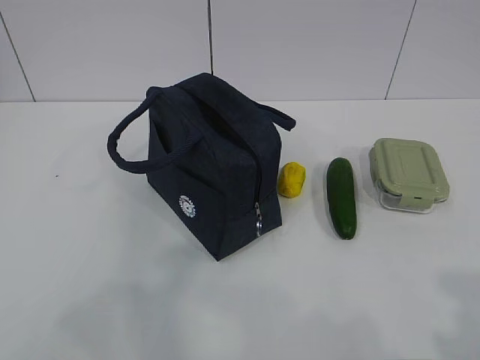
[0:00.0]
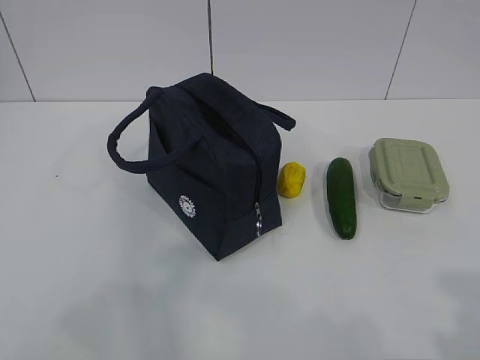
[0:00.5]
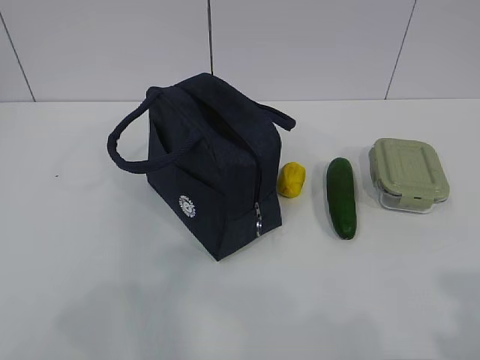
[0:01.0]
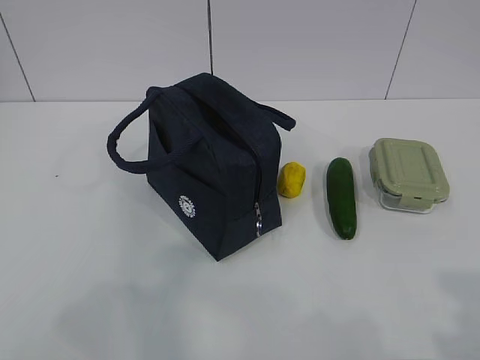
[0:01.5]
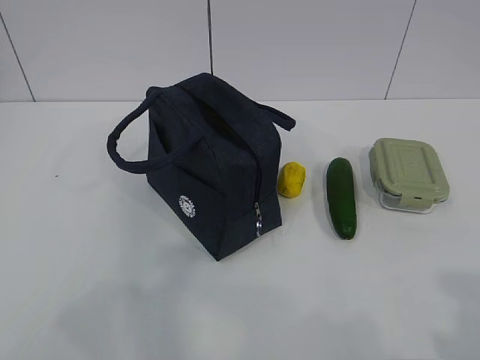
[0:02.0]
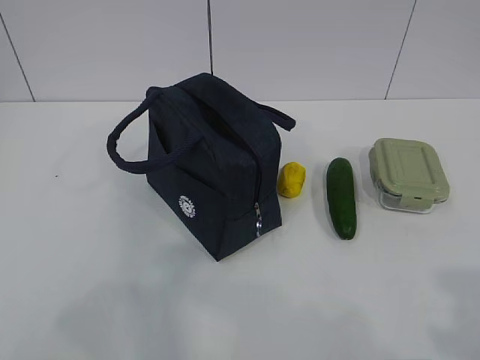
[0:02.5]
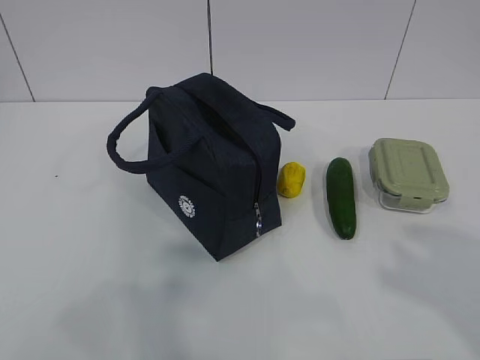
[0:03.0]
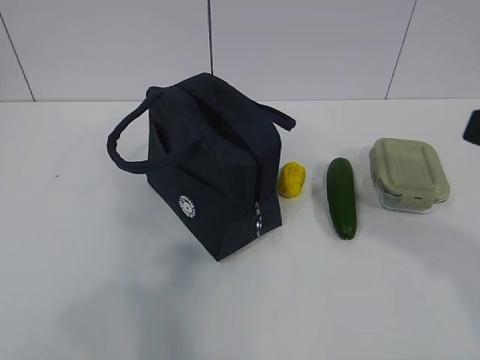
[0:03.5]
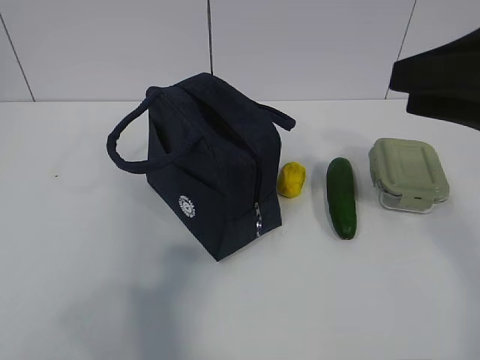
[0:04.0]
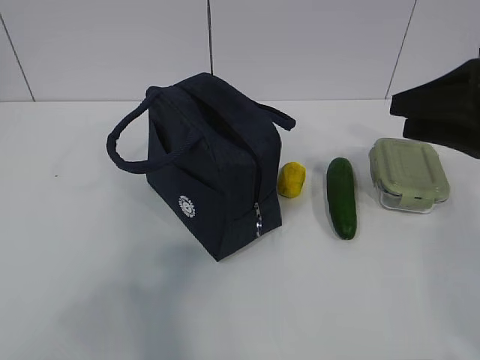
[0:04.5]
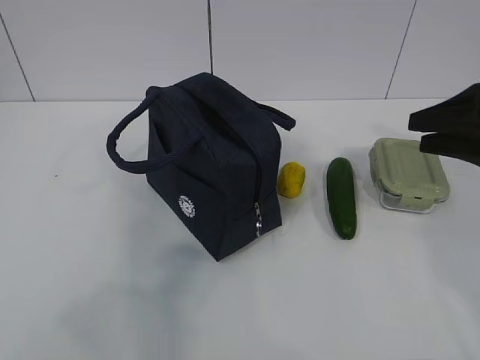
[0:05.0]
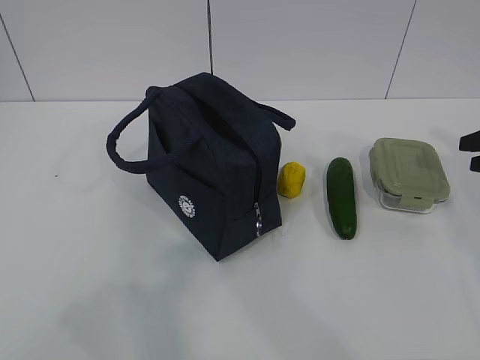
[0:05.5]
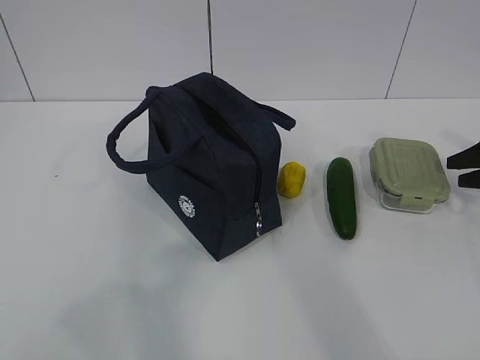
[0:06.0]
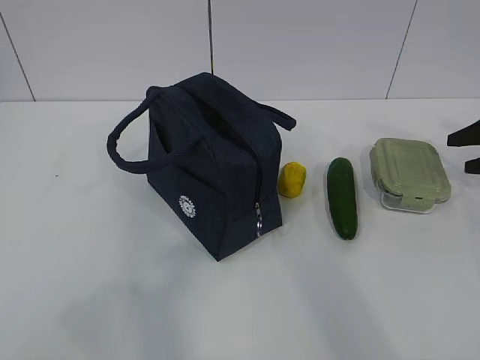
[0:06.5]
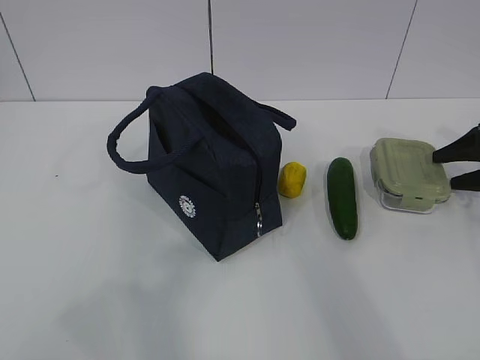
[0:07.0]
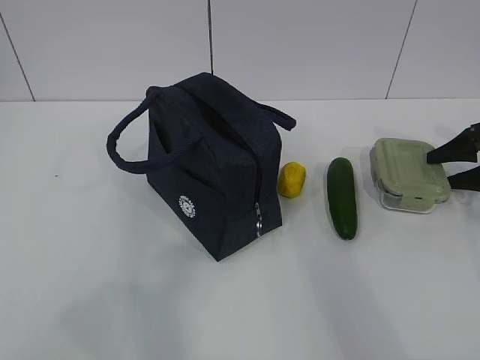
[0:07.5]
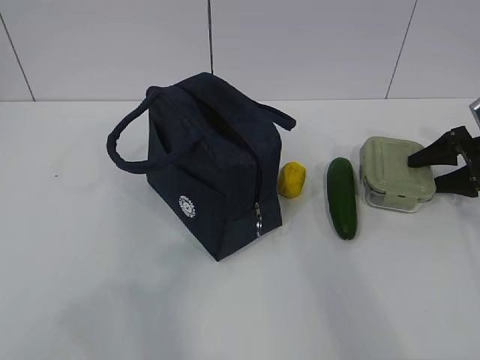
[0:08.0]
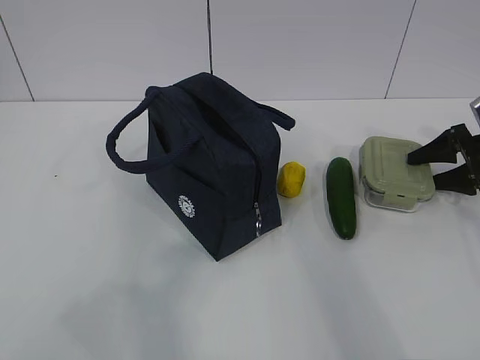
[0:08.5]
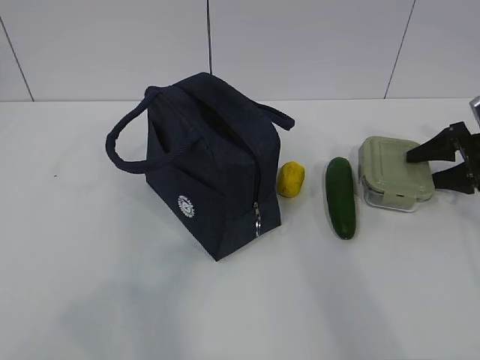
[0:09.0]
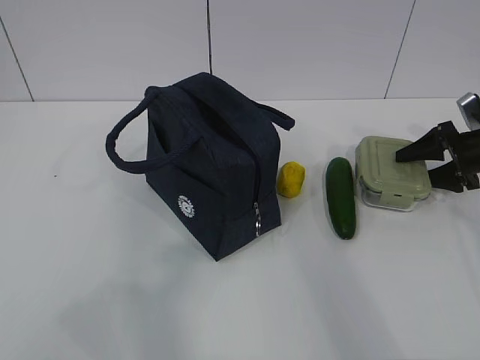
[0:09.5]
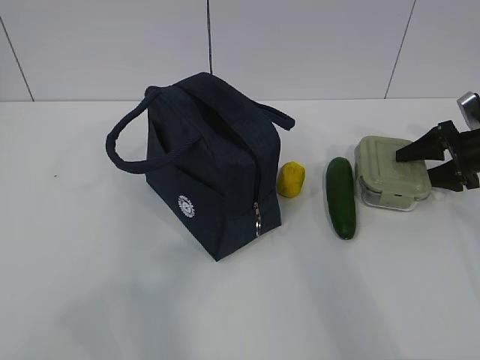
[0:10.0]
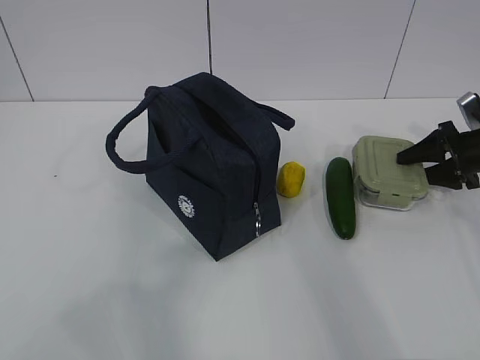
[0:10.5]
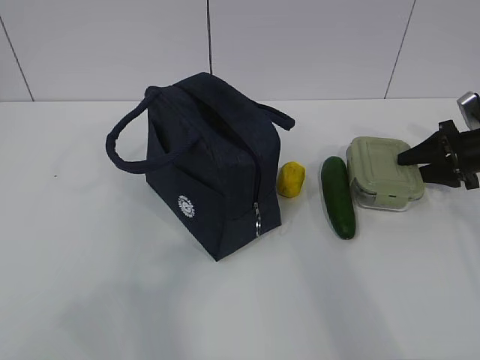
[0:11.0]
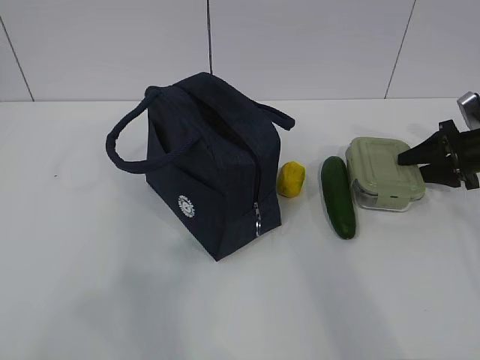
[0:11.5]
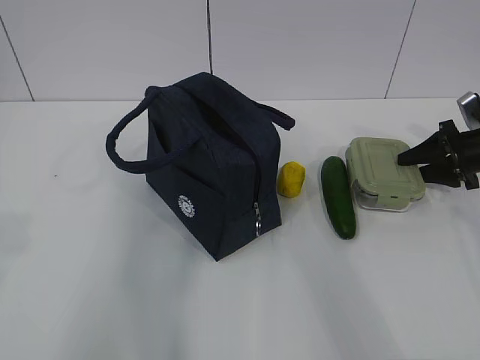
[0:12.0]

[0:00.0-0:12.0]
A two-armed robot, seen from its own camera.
Step, 0:00.0 to 0:11.5: Grab the lunch box with your right hand.
0:02.0 to 0:04.0: The right gripper goes about 20 cm forward.
0:04.0 to 0:06.0: The right gripper is displaced to the right, downward and forward by approximately 35 cm.
0:06.0 to 0:08.0: The right gripper moves approximately 5 cm.
0:08.0 to 0:10.0: The grippers stay close to where they were, moving slightly.

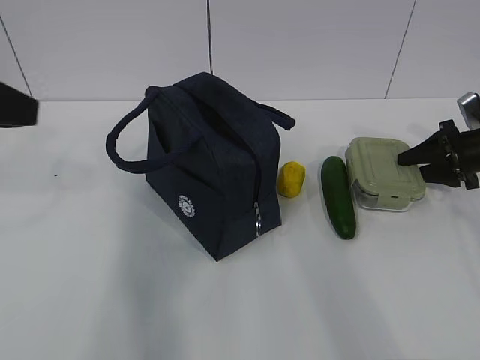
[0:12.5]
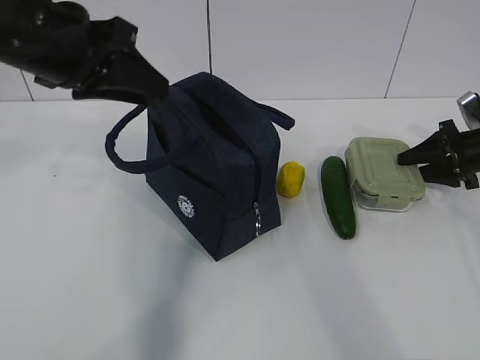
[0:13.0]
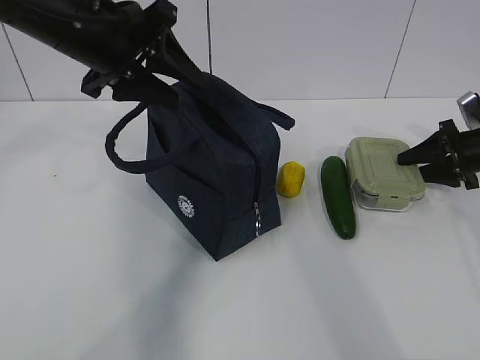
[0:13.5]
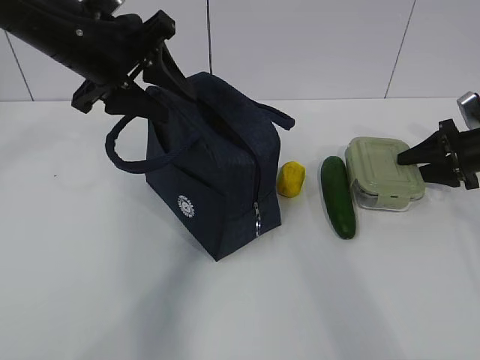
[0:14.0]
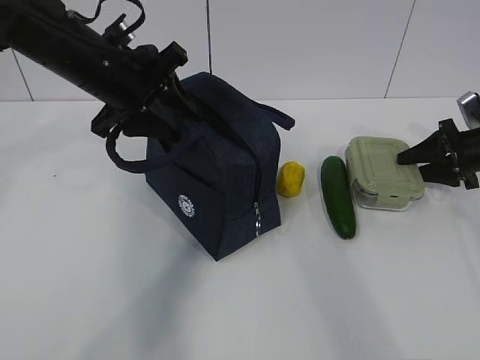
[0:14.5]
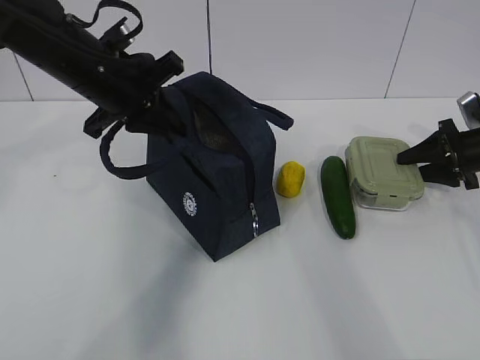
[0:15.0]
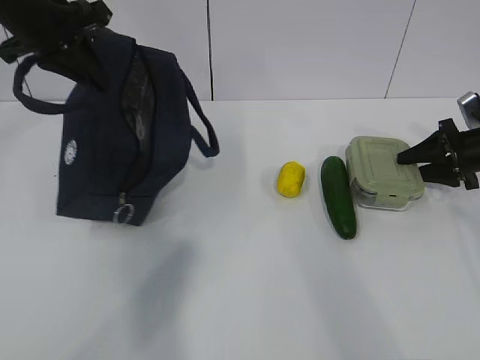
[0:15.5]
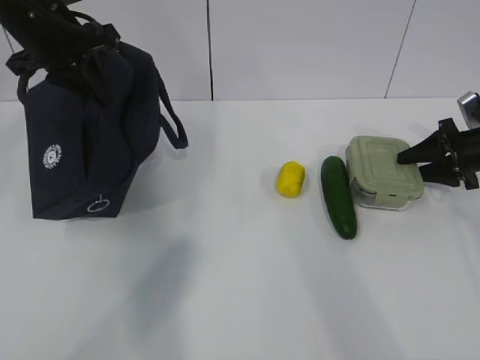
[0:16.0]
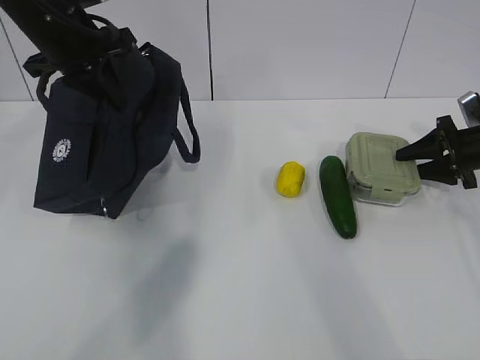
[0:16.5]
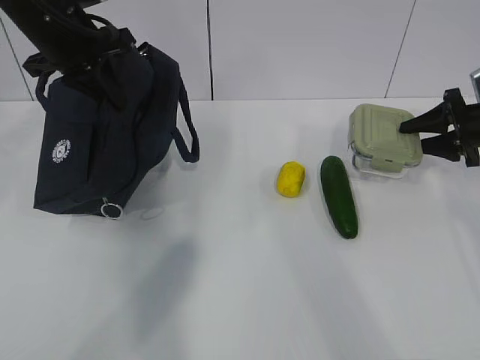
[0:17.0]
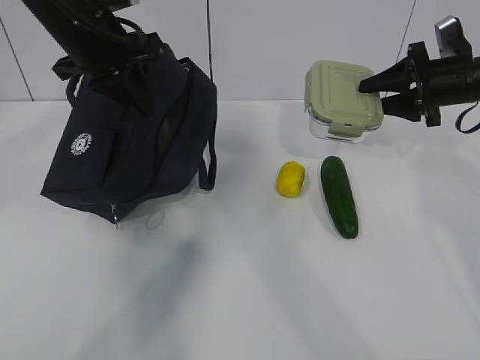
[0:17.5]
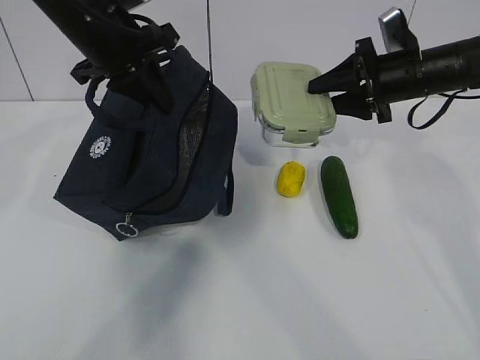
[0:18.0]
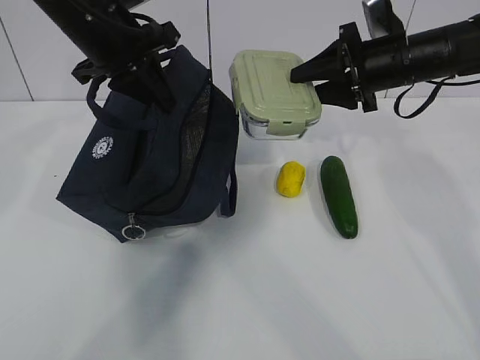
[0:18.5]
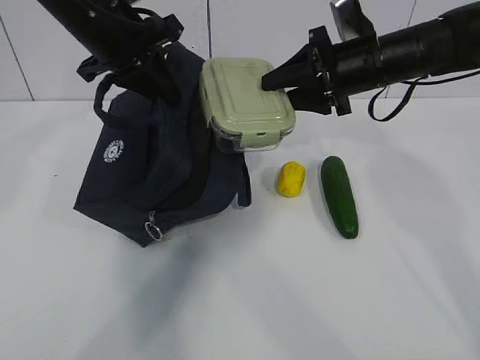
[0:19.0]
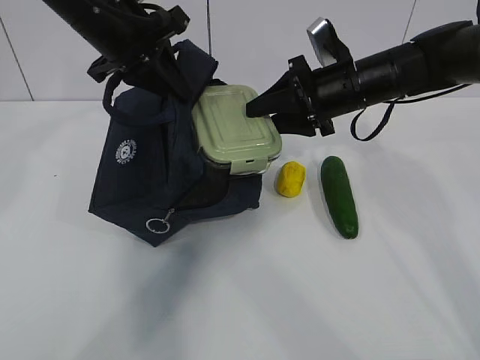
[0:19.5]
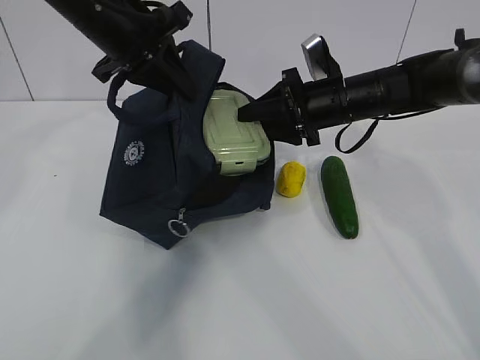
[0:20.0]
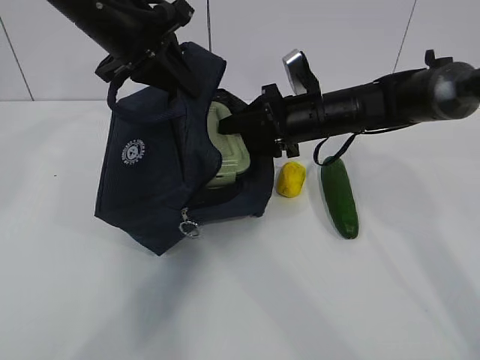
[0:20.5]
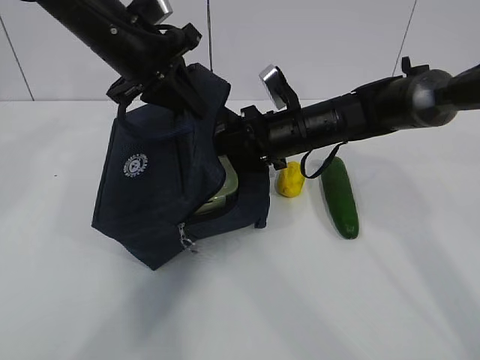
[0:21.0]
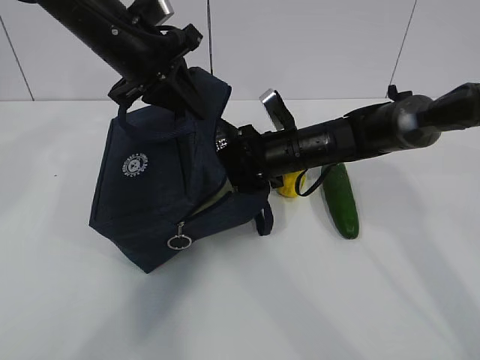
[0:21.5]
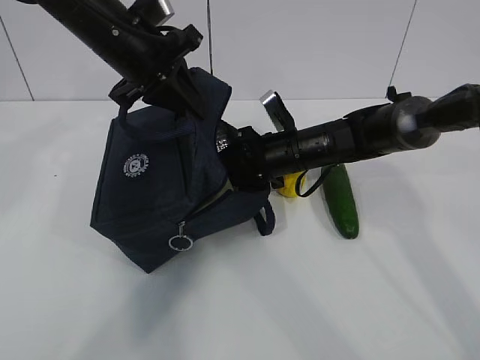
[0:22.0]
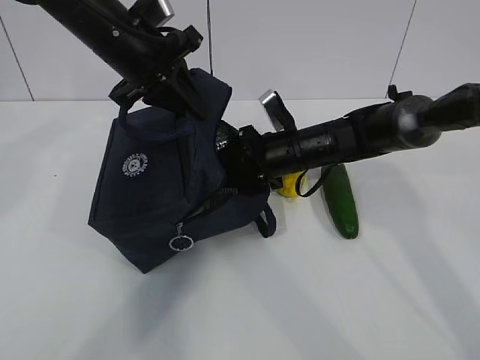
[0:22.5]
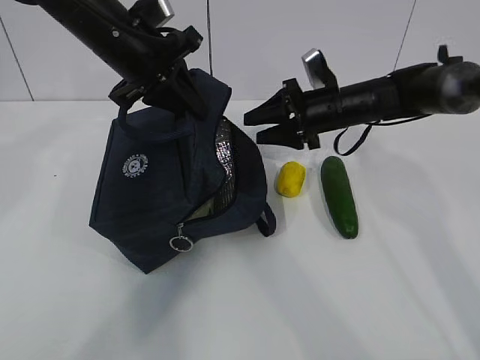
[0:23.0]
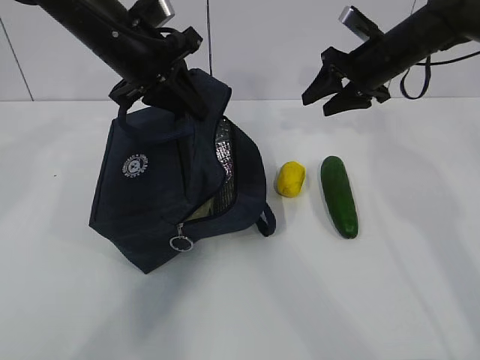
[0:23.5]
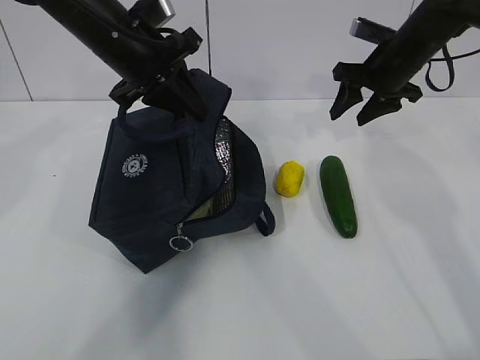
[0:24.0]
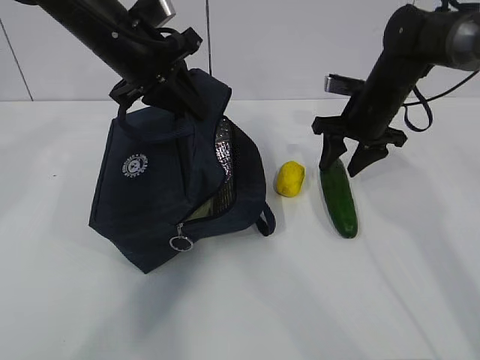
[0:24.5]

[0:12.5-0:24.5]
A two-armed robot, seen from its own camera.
Step, 0:14.0 to 0:15.5: Grab the lunch bag with your left hand.
Step, 0:16.0 to 0:18.5: Place it into the bag with your right hand.
Step, 0:19.0 to 0:21.0: Grab the cucumber with your right hand.
Step, 0:21.5 to 0:23.5: Place it into the bag with your right hand.
0:12.5 to 0:14.5: The left gripper heads forward, to the right and downward, covering roughly 20 cm, and opens up.
0:14.5 to 0:16.5: The left gripper heads to the left, covering approximately 5 cm, and closes.
0:16.5 to 0:18.5: The right gripper is displaced to the left and upward by roughly 20 cm; the left gripper moves about 5 cm.
0:18.5 to 0:20.5: The right gripper moves to the left and downward, approximately 10 cm.
0:20.5 to 0:22.5: The right gripper goes about 5 cm downward.
0:22.5 to 0:24.5: The right gripper heads to the right and upward, covering about 10 cm.

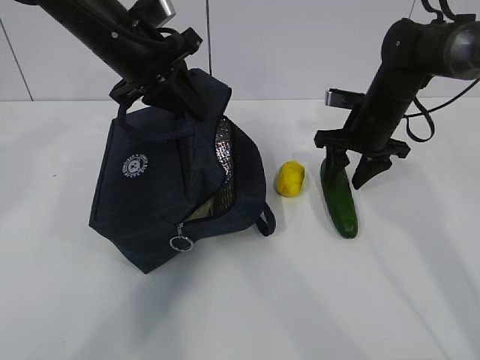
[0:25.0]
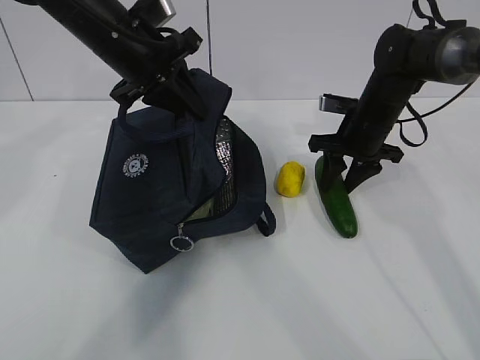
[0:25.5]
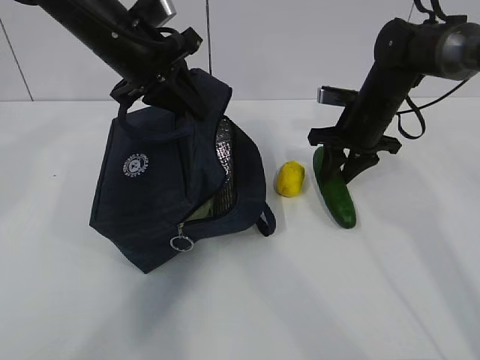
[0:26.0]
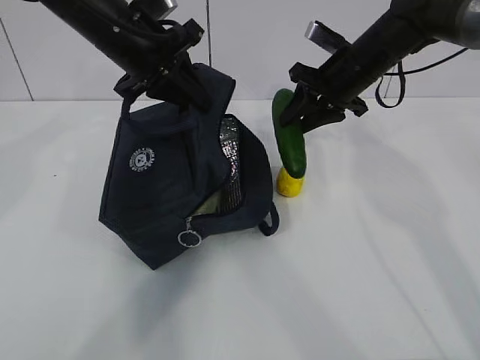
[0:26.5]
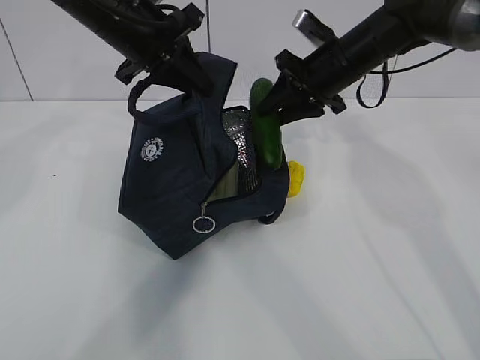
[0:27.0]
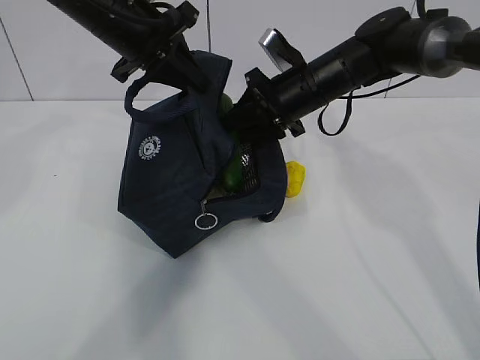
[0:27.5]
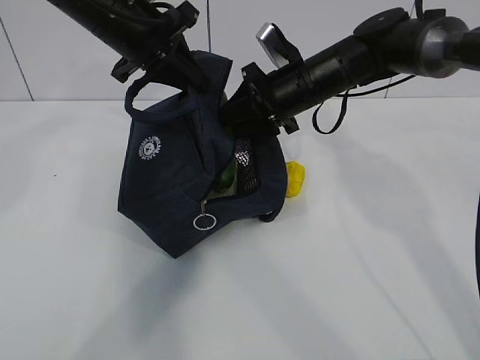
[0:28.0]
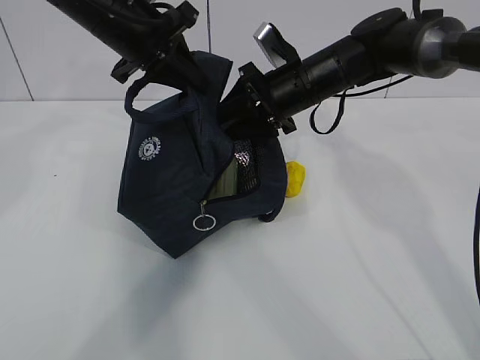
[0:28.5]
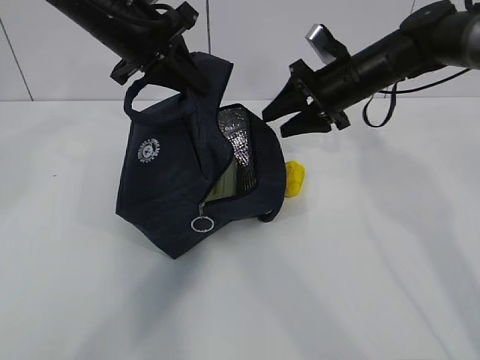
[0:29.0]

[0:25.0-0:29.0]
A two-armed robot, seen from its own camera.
Step, 0:25.5 to 0:27.0: Secure the lunch bag with your left hand.
Step, 0:27.5 to 0:28.5: Grab the lunch bag with your right hand.
0:25.0 to 0:27.0: The right gripper heads upward and to the left, covering approximately 10 cm.
0:27.0 to 0:29.0: There are only small adjustments of the grippers.
